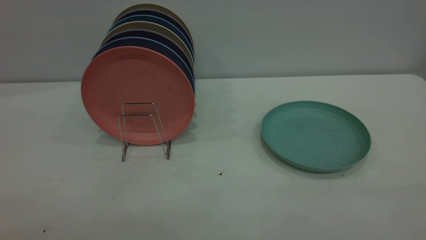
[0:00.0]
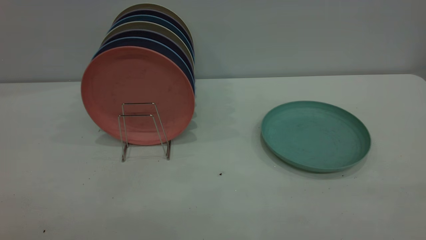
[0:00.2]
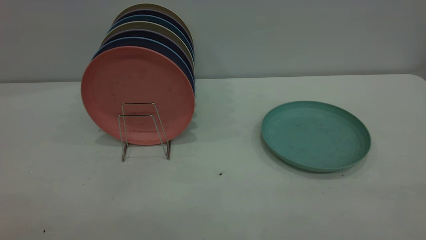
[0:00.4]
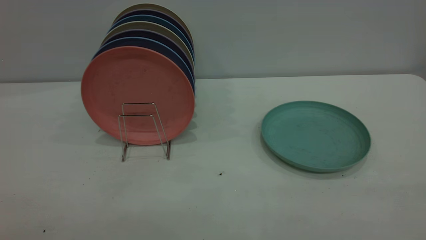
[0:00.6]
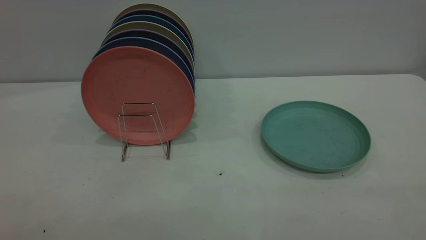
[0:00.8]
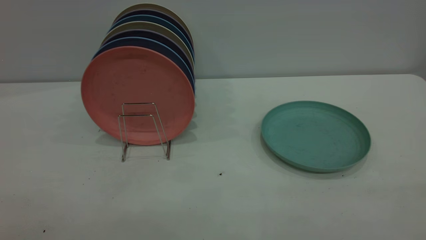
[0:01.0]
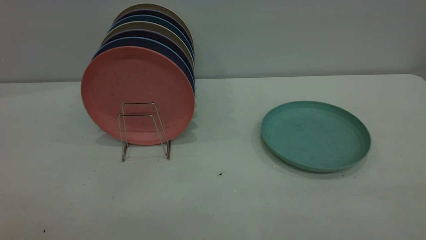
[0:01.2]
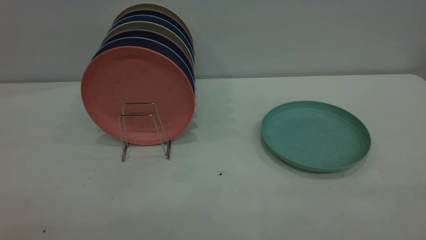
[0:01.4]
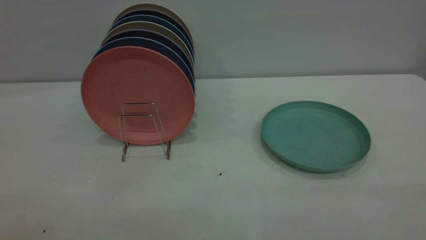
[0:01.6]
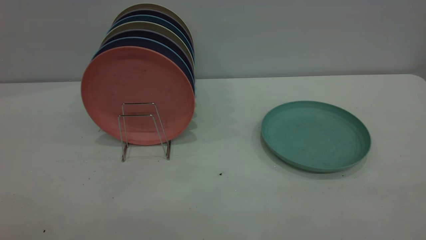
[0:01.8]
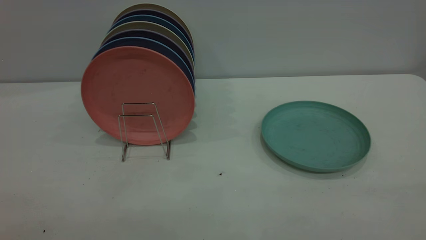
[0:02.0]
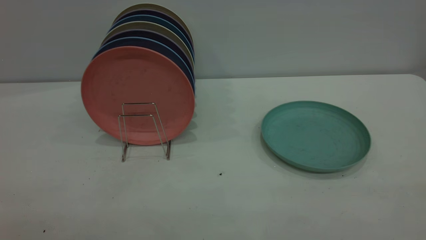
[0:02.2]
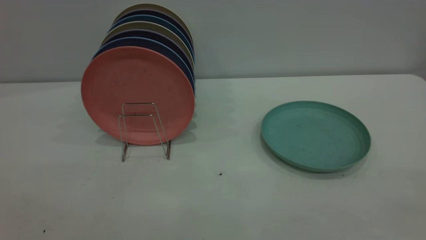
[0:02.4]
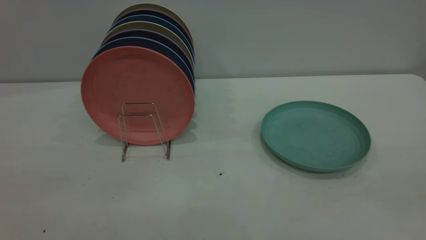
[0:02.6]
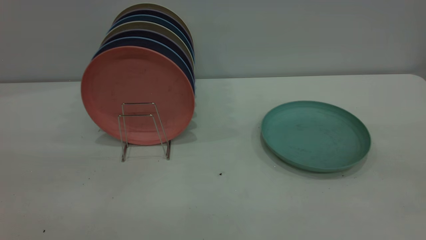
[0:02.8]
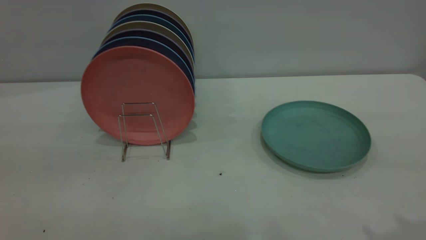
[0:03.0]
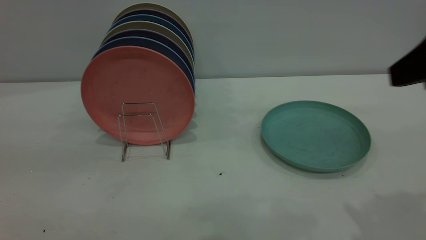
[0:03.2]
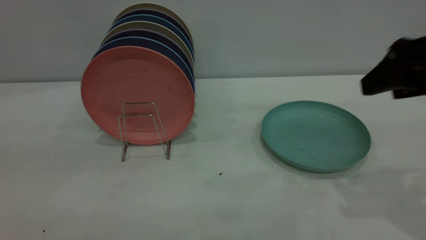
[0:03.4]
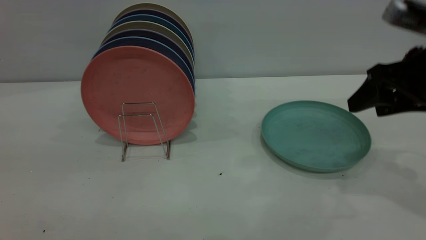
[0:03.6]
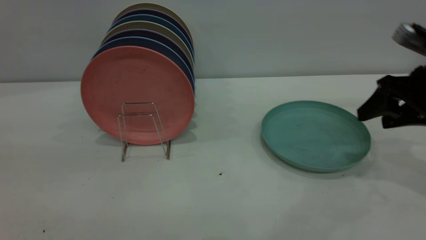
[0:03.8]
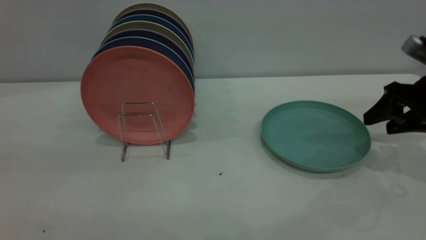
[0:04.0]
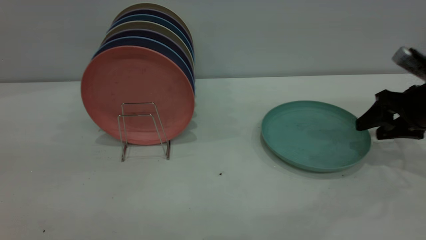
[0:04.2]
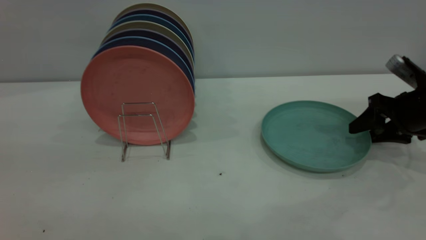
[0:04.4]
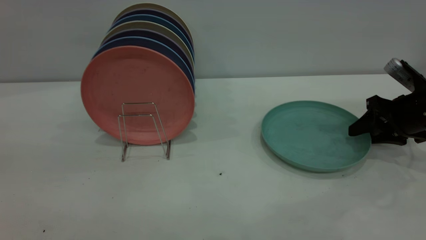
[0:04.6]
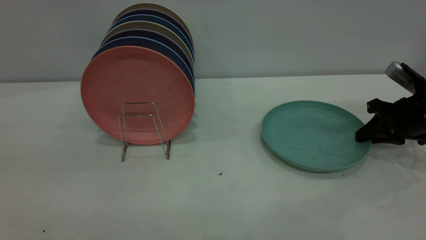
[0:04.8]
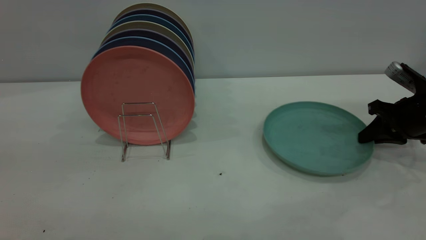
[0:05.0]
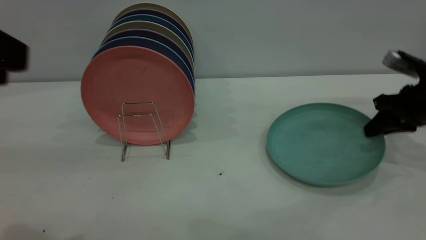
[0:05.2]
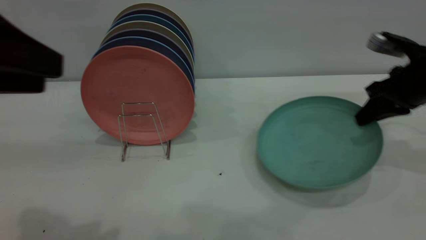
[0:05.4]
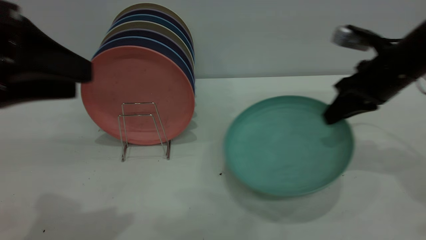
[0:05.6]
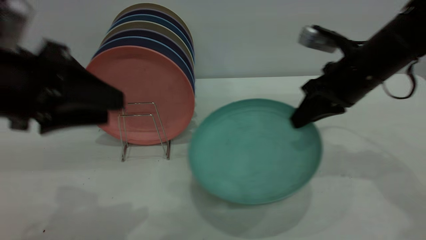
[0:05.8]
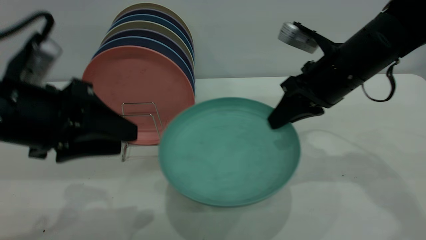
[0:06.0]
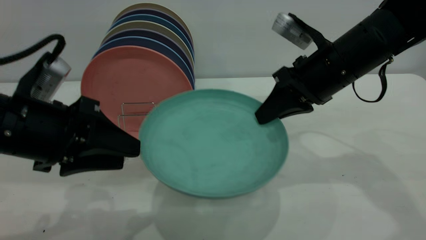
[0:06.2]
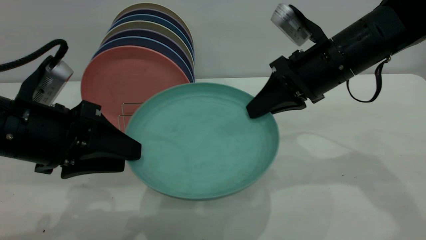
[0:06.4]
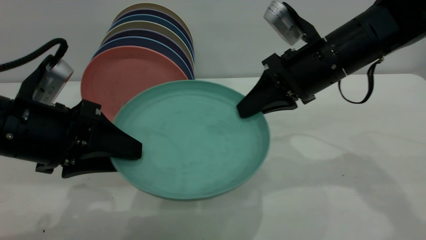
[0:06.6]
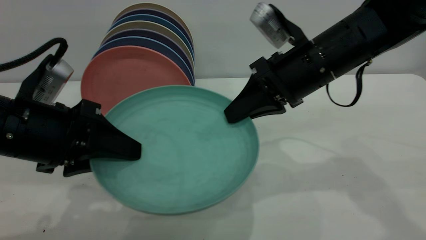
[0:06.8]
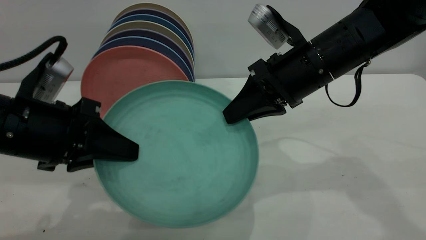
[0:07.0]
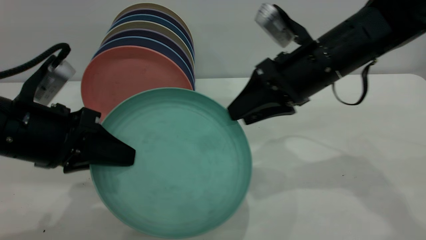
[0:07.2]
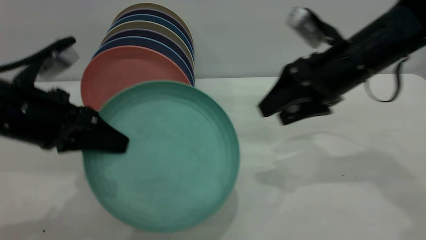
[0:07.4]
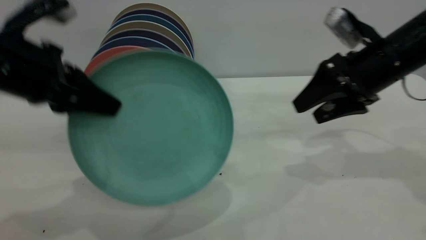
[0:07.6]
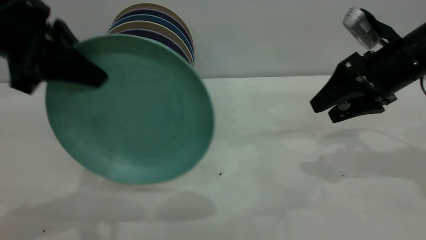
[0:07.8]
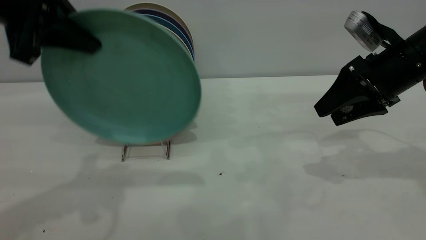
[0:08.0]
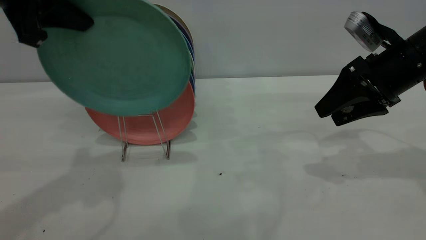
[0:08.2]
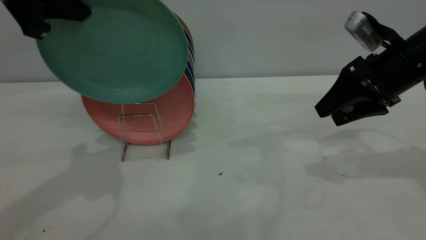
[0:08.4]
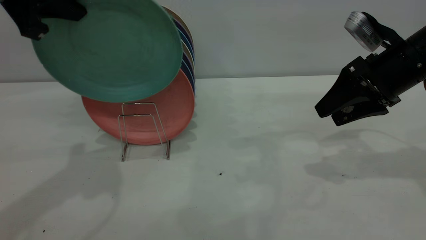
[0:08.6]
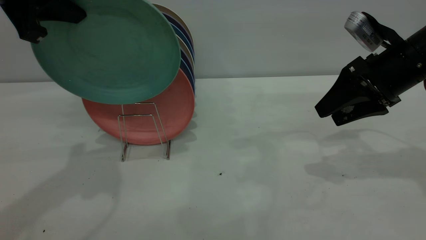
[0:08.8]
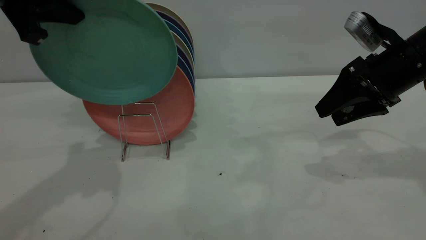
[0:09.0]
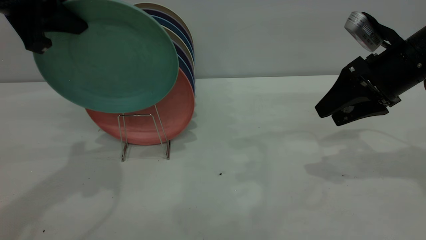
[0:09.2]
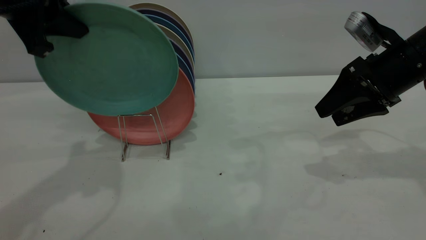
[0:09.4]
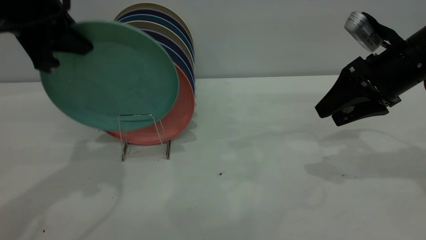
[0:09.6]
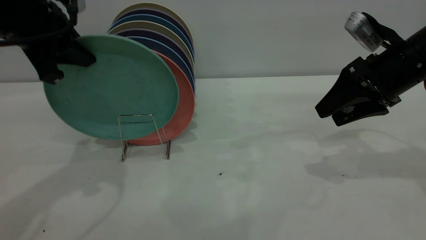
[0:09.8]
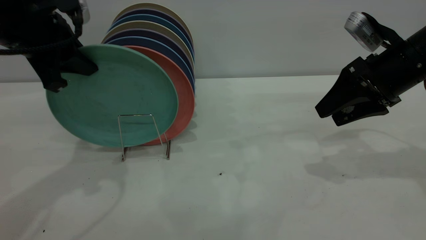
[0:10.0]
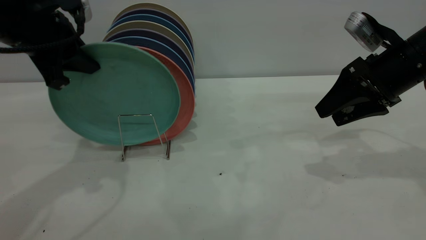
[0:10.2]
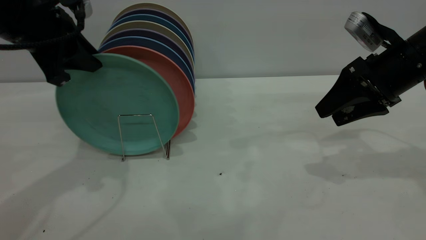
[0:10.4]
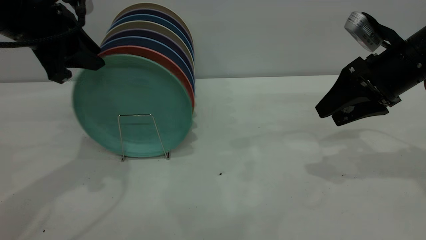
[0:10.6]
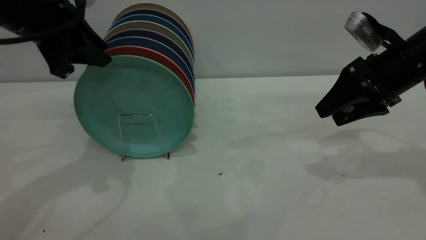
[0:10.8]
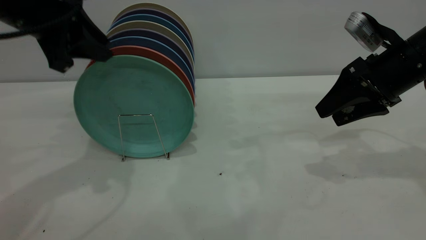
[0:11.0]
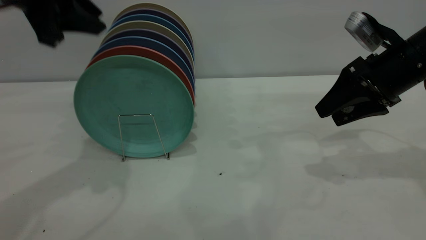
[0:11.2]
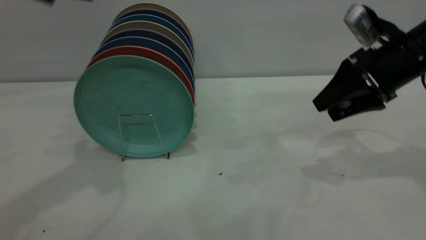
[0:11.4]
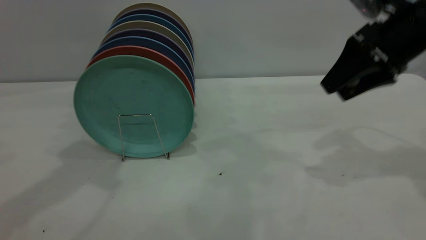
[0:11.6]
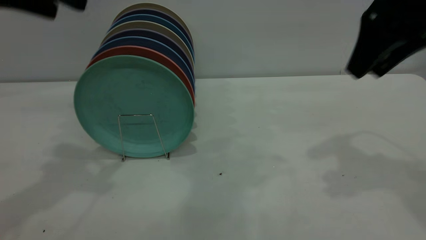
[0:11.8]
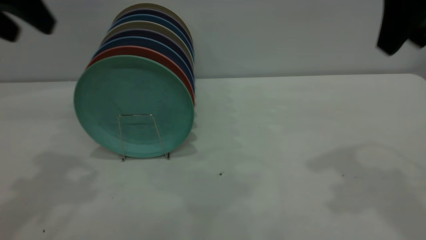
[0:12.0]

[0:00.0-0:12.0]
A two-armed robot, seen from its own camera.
Task of the whole recording: the right gripper grasp the green plate, the right gripper pass the green plate to the left gripper, and the left gripper place the green plate on the plate rack.
Step, 0:00.0 to 0:05.4: Pick up the plate with the right gripper.
Step, 0:05.6 to 0:07.2: Pass the plate from the right gripper to the left gripper.
Step, 0:07.4 to 0:11.0: Place the plate on the shelf.
0:00.0 to 0:01.6: Neither gripper changes place.
0:03.0 to 0:04.4: The right gripper heads downward and forward, covering approximately 30 cm.
0:04.4 to 0:06.0: The right gripper heads to the left and upward, covering approximately 20 cm, and closes its fingers; the left gripper shifts approximately 20 cm downward and forward.
0:06.0 to 0:07.6: The right gripper heads to the right, covering some 5 cm, and opens up. The left gripper moves upward, some 5 cm, and closes up.
0:07.6 to 0:09.0: The left gripper moves upward and forward, roughly 10 cm.
0:09.0 to 0:10.4: The left gripper goes approximately 5 cm downward.
0:10.4 to 0:12.0: The left gripper moves upward and backward, approximately 10 cm, and opens its fingers. Meanwhile the right gripper is displaced upward and backward by approximately 20 cm.

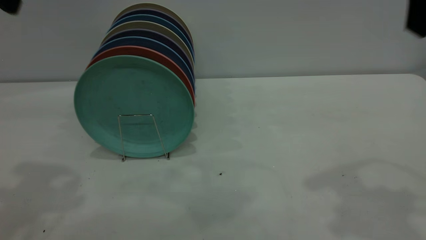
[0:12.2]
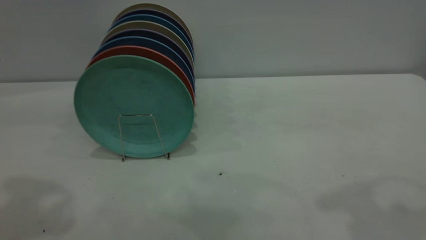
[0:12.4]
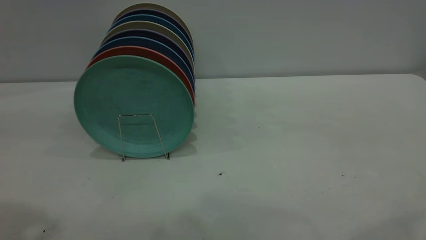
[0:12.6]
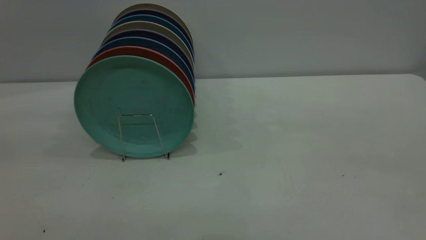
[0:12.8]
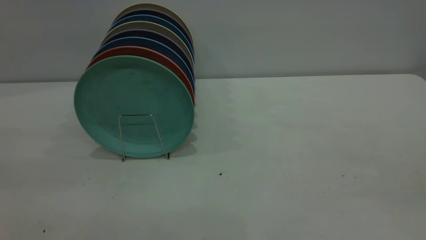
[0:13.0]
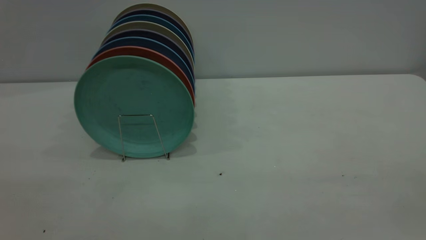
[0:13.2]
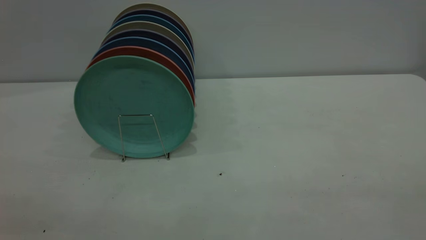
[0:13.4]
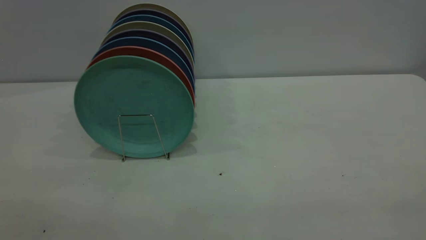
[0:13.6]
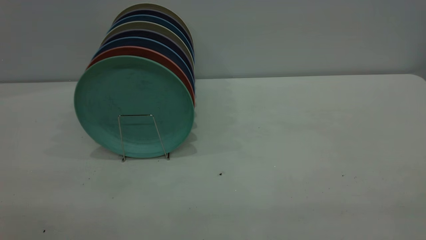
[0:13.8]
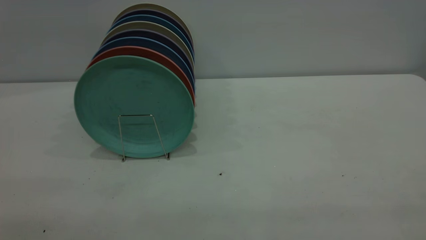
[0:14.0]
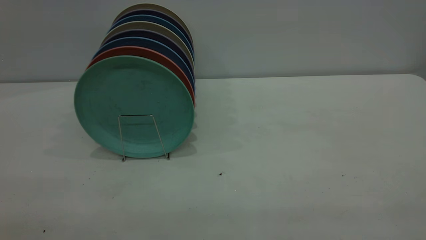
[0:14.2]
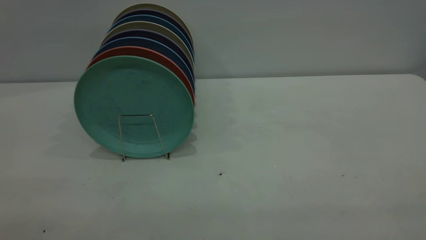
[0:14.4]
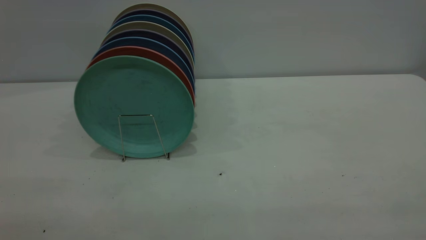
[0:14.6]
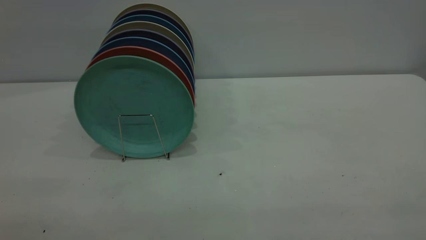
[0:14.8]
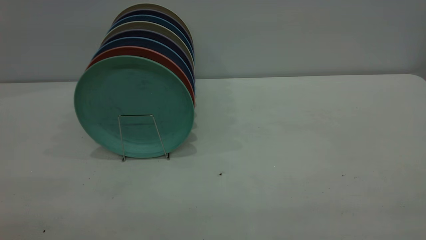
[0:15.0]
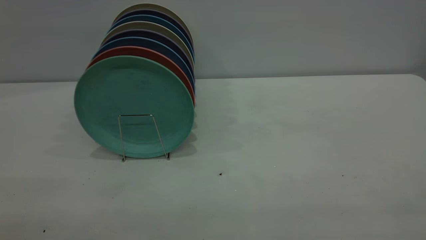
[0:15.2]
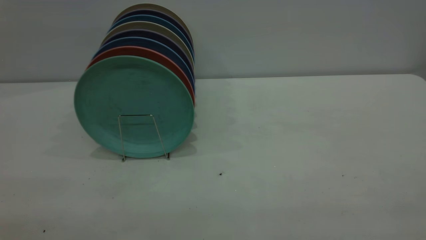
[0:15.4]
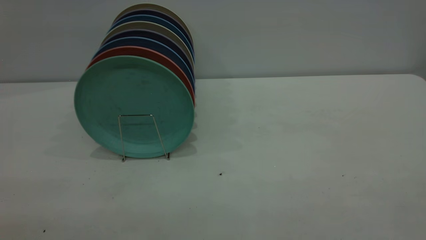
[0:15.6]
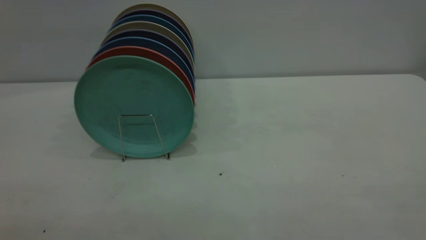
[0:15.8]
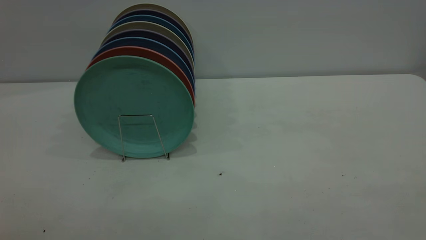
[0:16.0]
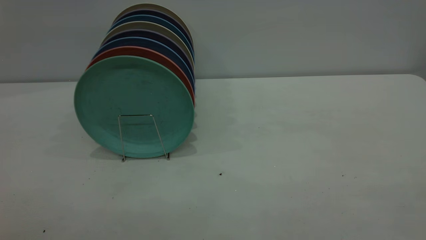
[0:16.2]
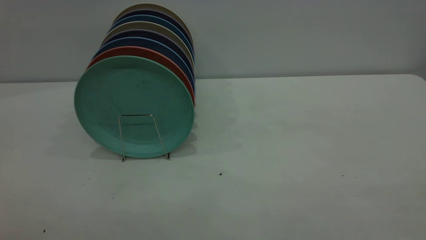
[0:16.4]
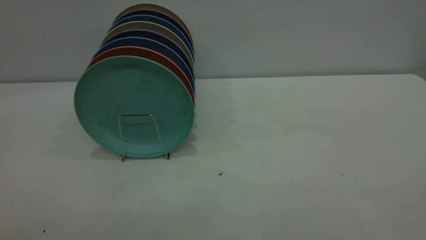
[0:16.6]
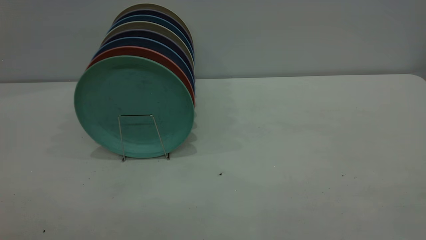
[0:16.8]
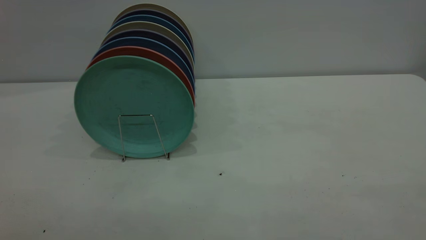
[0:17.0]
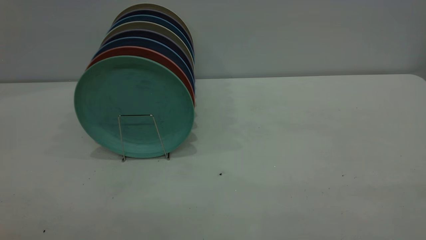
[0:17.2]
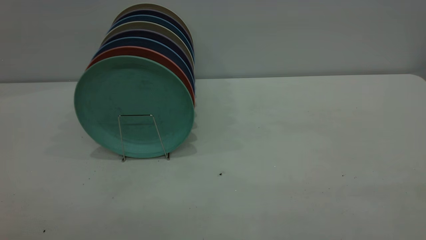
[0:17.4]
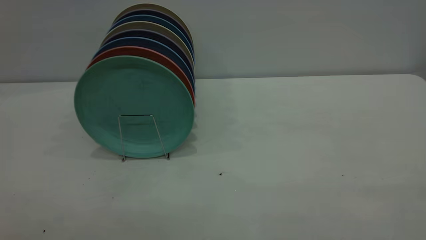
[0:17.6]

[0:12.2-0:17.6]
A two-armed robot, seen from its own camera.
Task of the whole recording: the right gripper grasp the green plate, the right gripper pass the green plate to the left gripper, and the left gripper place the green plate on the plate rack.
0:12.2 to 0:13.6: The right gripper goes roughly 25 cm backward.
